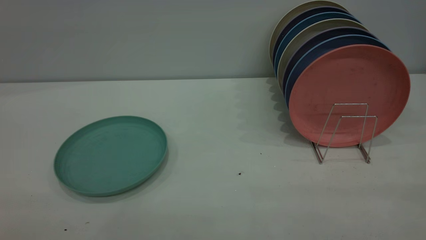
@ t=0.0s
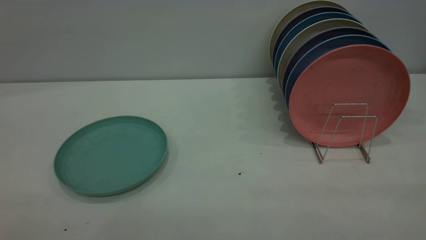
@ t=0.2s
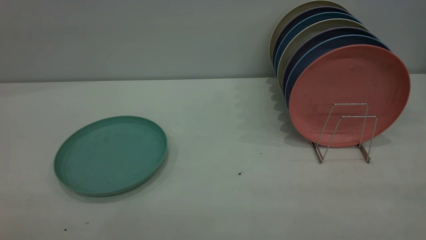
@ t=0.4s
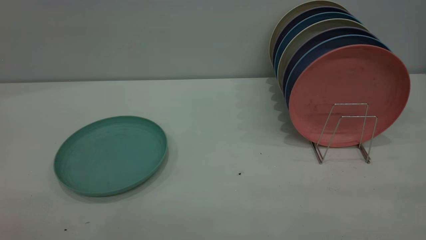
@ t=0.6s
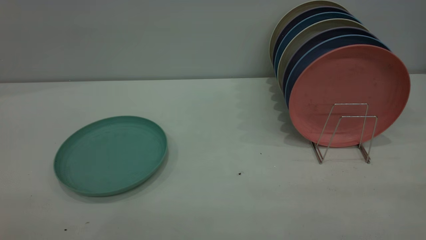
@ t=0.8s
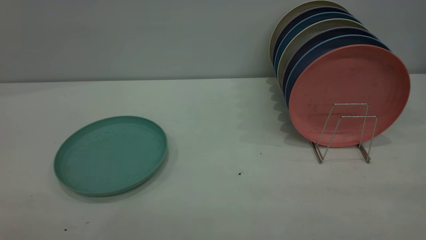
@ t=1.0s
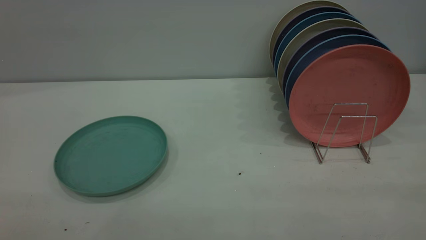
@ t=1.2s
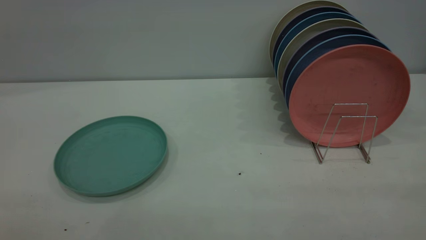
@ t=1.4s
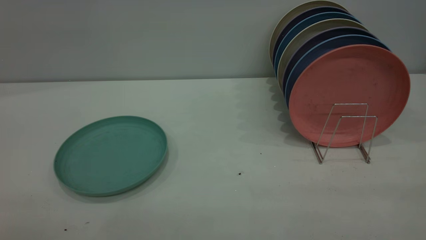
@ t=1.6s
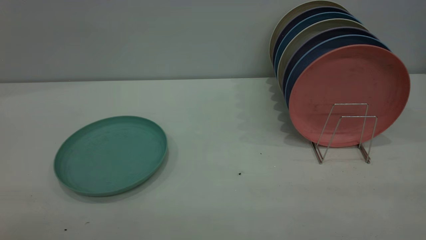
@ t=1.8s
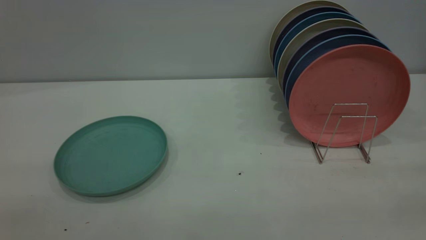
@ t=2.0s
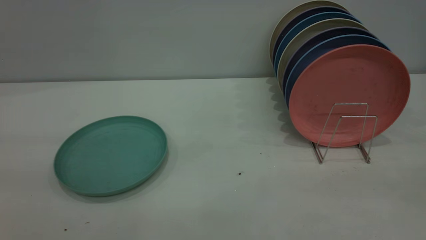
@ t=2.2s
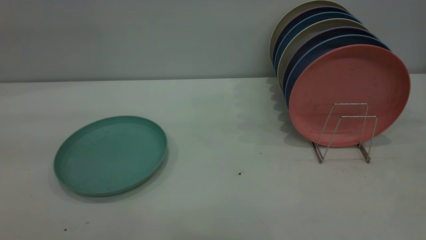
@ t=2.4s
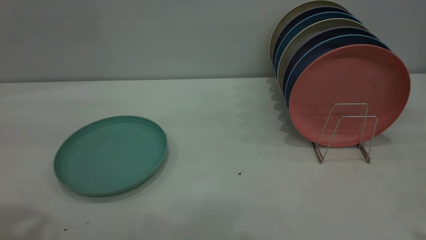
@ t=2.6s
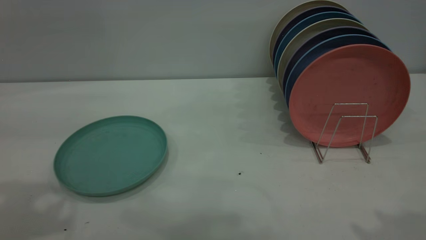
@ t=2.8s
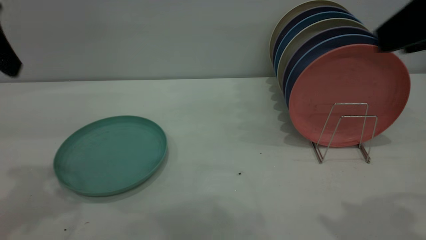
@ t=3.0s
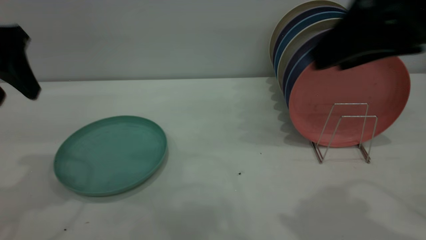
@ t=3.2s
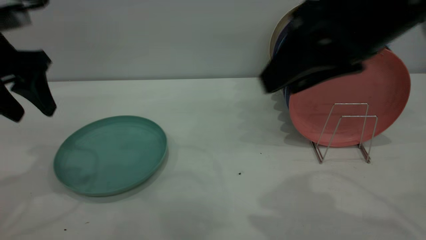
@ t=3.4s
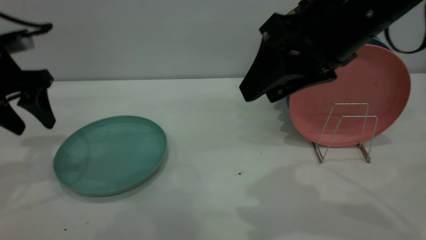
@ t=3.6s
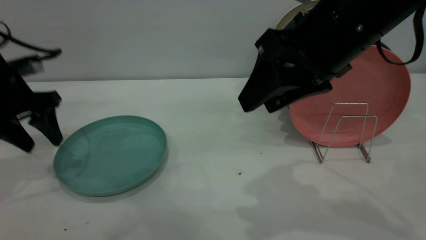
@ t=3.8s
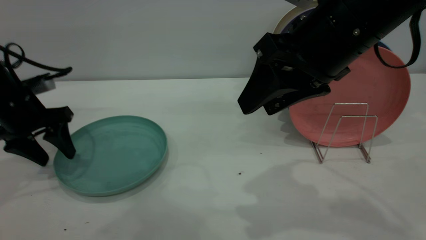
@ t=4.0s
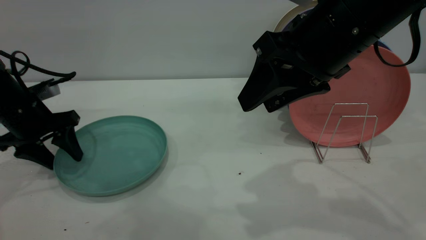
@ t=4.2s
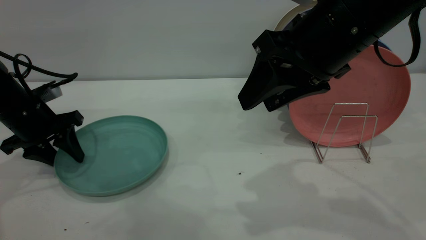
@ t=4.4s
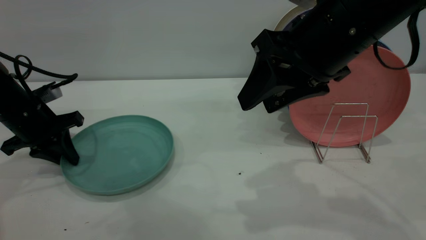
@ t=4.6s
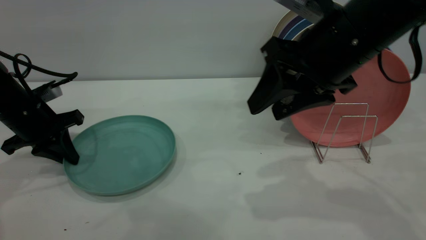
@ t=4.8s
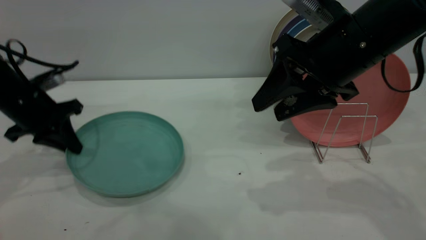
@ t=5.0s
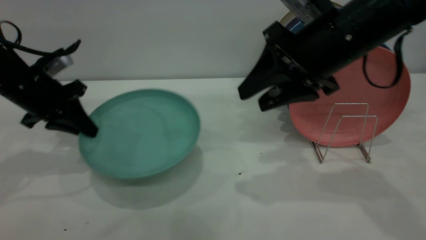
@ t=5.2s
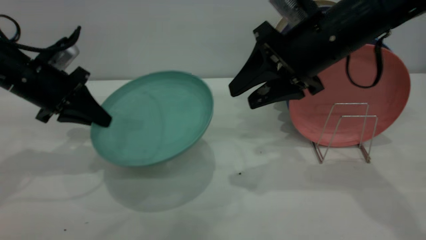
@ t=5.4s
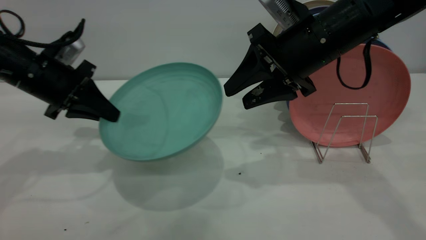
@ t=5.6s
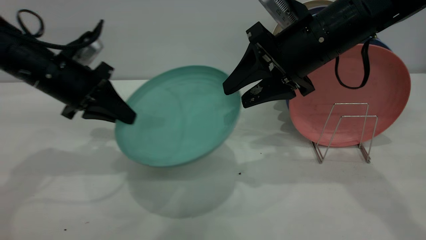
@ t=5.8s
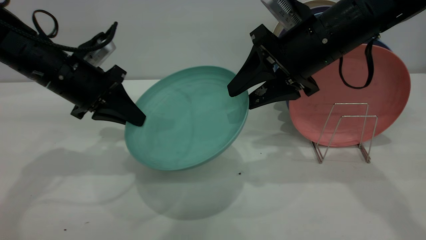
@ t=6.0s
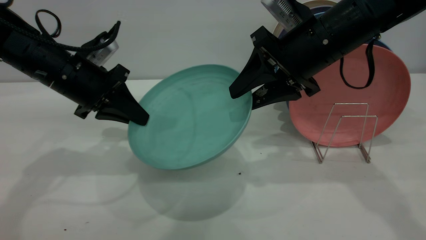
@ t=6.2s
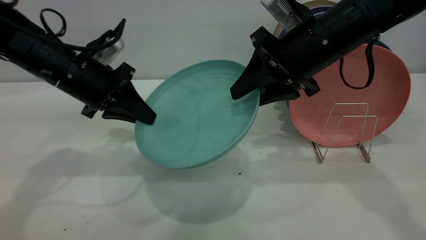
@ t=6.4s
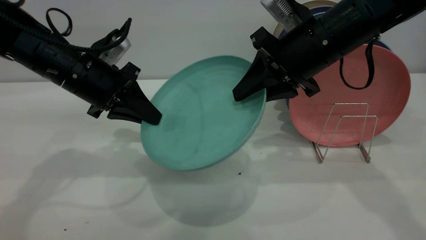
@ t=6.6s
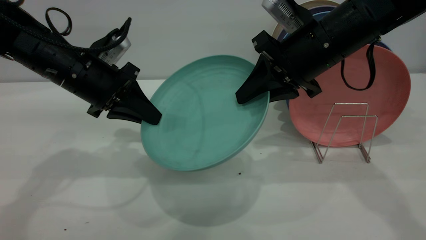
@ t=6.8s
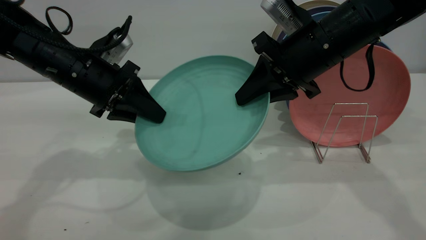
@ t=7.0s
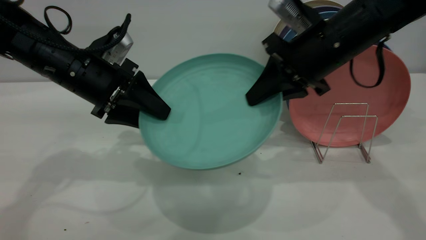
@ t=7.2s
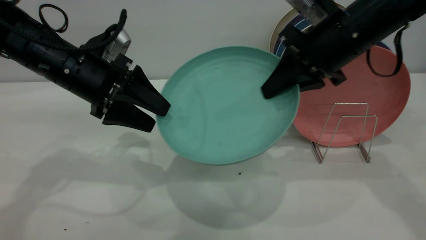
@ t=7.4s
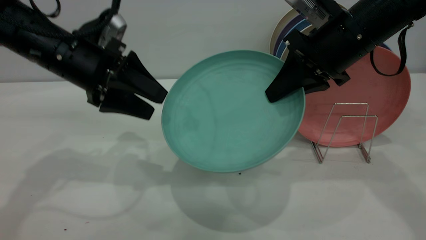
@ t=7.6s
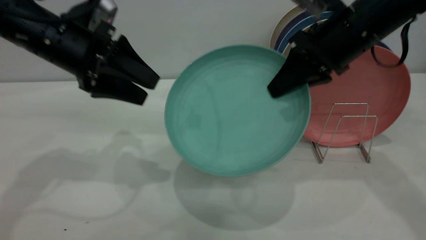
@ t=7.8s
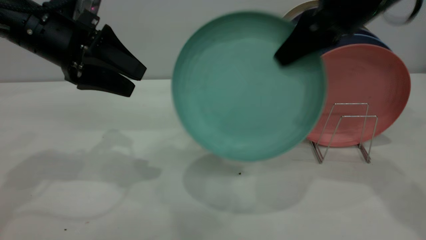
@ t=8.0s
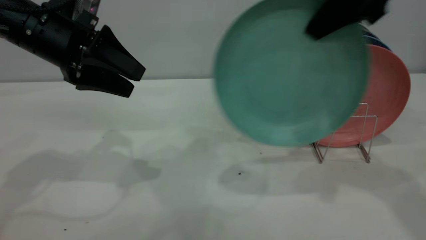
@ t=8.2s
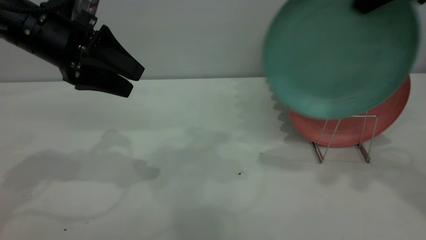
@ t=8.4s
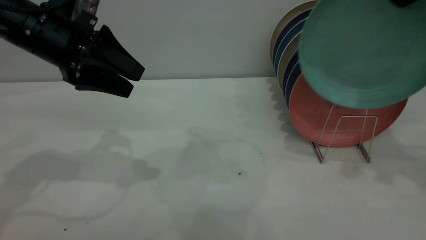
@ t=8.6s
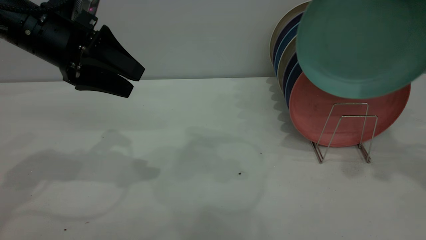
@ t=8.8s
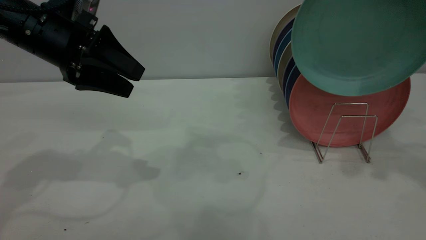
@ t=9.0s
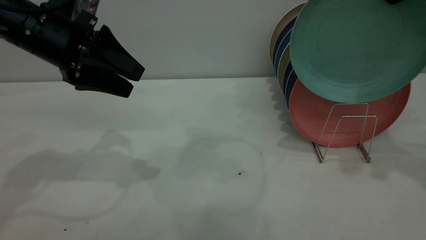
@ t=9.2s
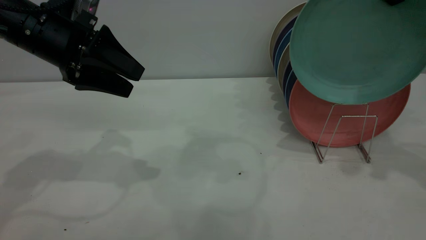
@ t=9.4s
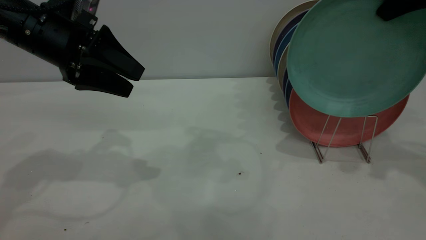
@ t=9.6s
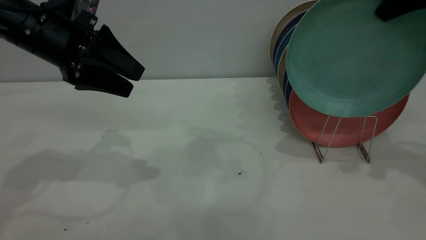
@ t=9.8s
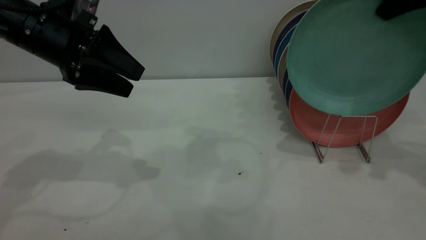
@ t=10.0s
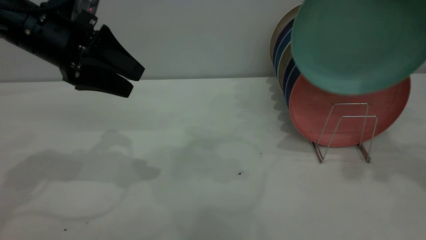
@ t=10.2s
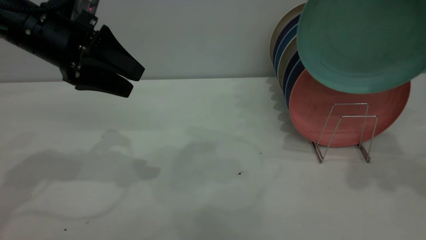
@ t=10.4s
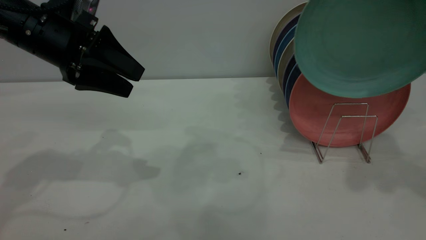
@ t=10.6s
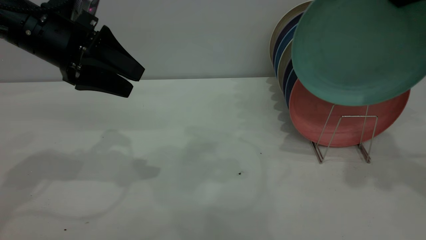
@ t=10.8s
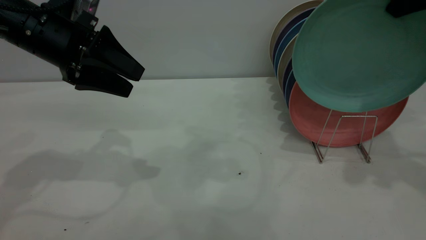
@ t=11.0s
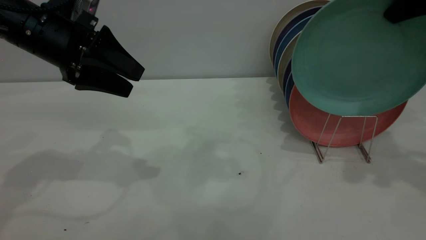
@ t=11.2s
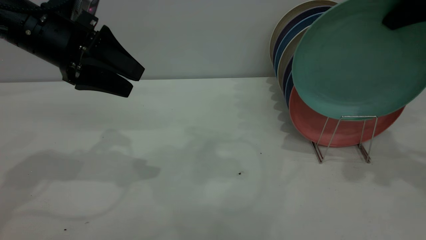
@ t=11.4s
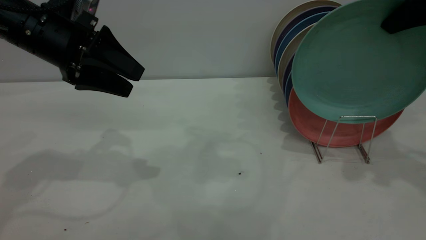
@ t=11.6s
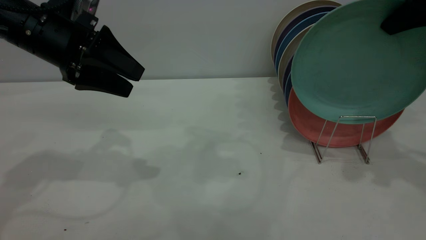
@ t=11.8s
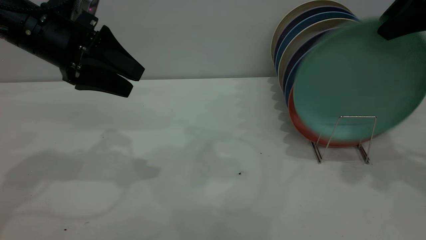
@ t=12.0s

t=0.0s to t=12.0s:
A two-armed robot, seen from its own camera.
Task of the whole recording: the left gripper grasp the green plate, the left gripper pass the green plate to the right gripper, and the right gripper place the green plate on the plate rack.
Step, t=0.0s to t=5.0s: Pick up the plate with the left gripper.
Step, t=5.2s to t=7.6s: Pass the plate from the left gripper to the right gripper.
t=0.0s to t=1.6s: Neither gripper changes place.
t=1.6s to t=3.0s: The two grippers go roughly 25 cm forward. The right gripper opens up.
t=3.0s to t=4.4s: The right gripper travels to the left, forward and downward by approximately 15 cm; the left gripper goes roughly 25 cm downward and forward.
t=4.4s to t=6.0s: The right gripper shifts approximately 10 cm forward and downward. The left gripper shifts about 10 cm to the right and upward, and closes up.
t=6.0s to t=7.6s: The right gripper closes up, while the left gripper opens up.
t=7.6s to t=9.0s: The right gripper is displaced upward and to the right by roughly 20 cm.
t=10.4s to t=12.0s: The right gripper heads downward, covering some 5 cm, and opens.

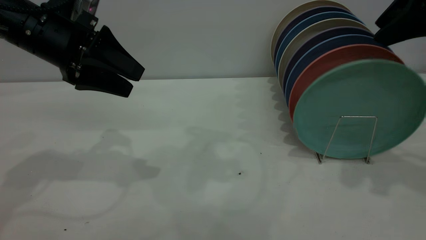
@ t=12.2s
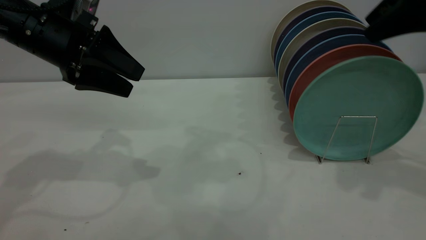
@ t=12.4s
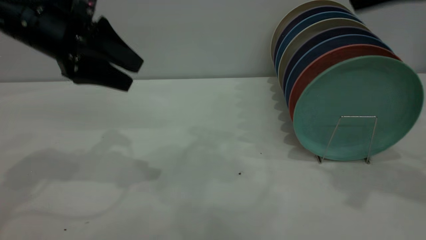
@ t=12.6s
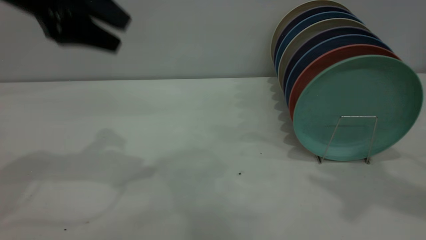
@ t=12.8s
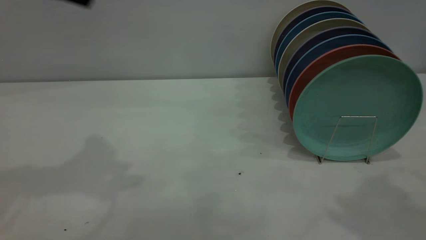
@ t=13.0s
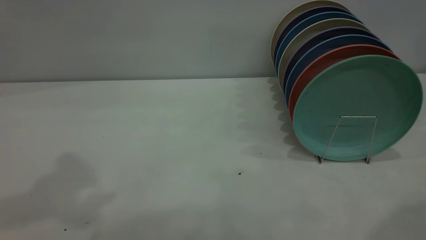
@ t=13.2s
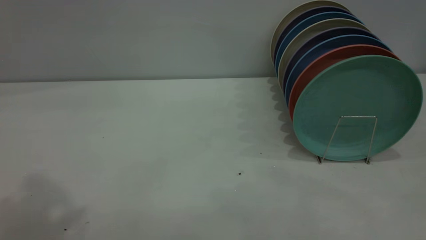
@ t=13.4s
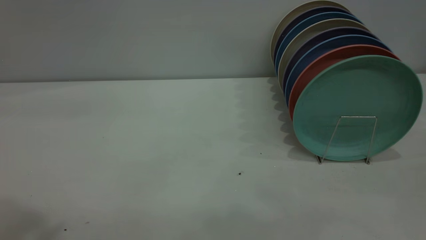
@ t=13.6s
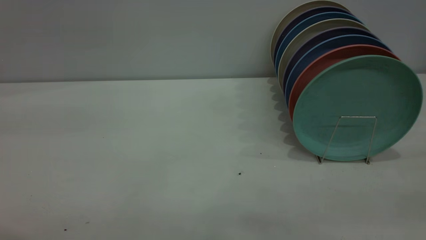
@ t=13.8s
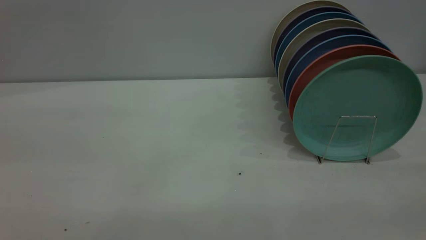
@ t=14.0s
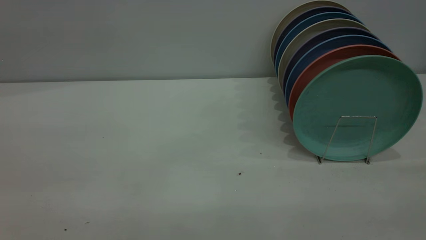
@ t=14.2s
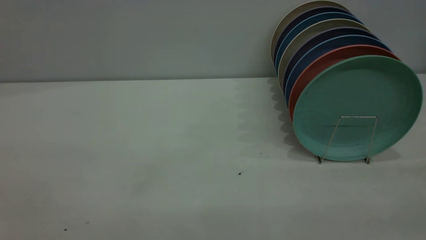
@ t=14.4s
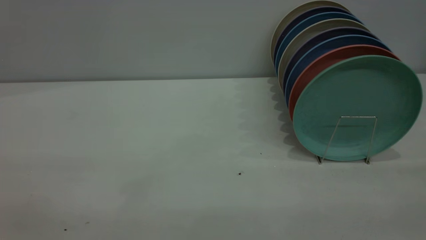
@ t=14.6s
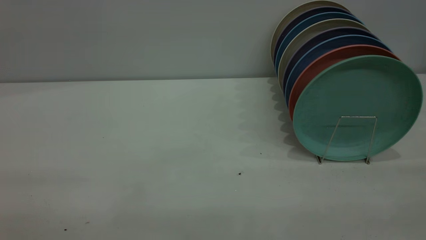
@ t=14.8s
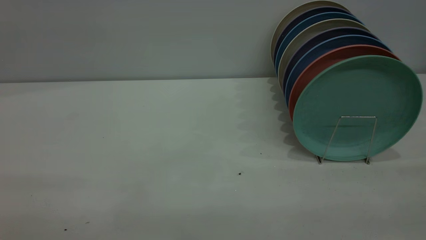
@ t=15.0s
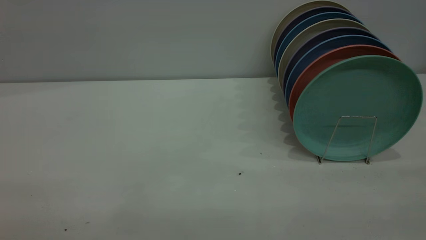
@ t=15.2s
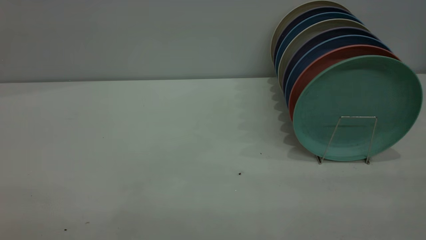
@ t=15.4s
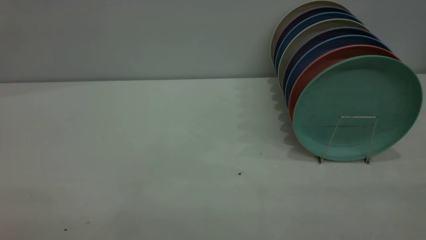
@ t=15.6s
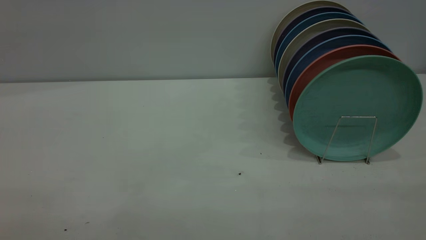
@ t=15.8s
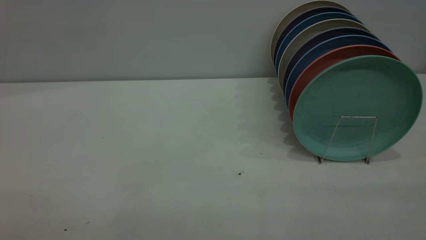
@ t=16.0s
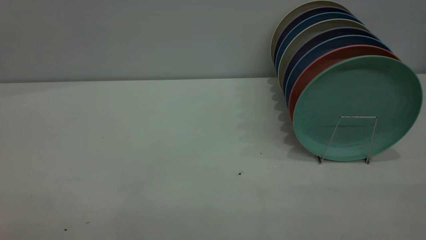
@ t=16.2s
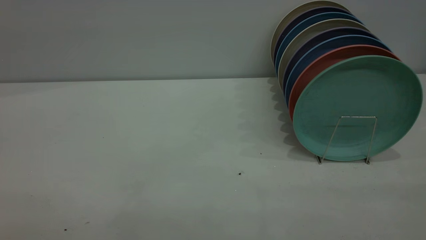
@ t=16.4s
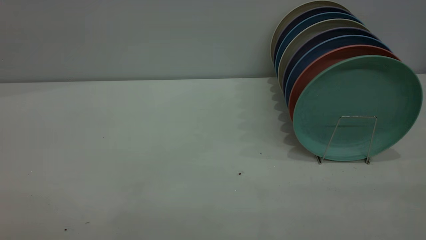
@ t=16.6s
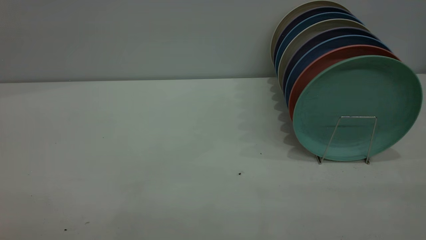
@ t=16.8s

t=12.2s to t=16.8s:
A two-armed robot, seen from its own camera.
Task of the whole recording: the left gripper grasp the green plate, the left gripper pass the green plate to the right gripper, and the right gripper place the green plate on the plate rack.
t=12.2s to t=13.8s: The right gripper travels backward by roughly 30 cm. The left gripper shifts roughly 35 cm upward and backward.
